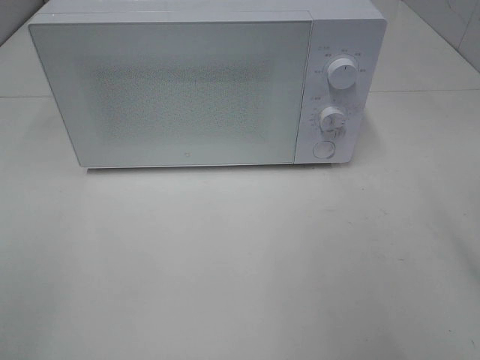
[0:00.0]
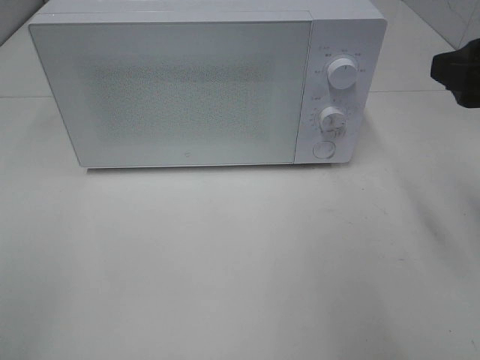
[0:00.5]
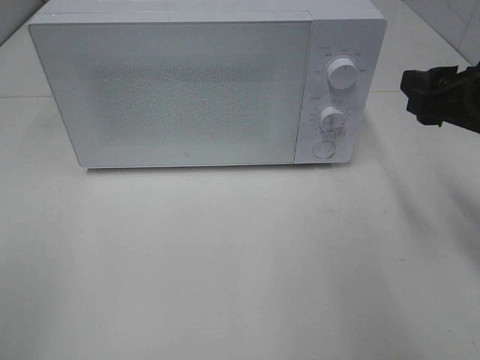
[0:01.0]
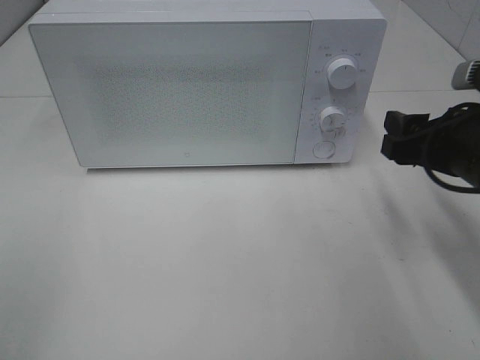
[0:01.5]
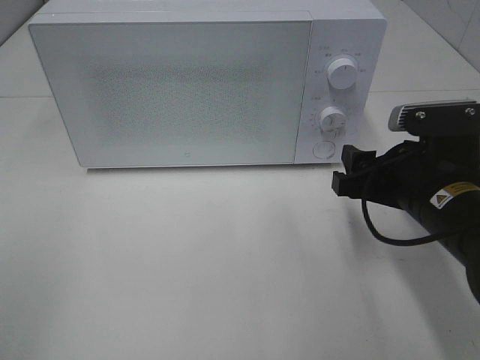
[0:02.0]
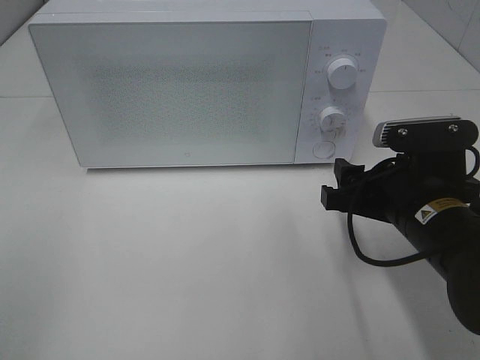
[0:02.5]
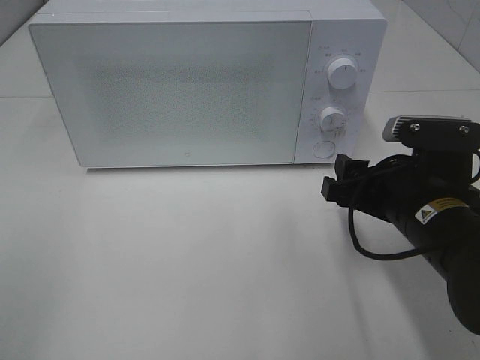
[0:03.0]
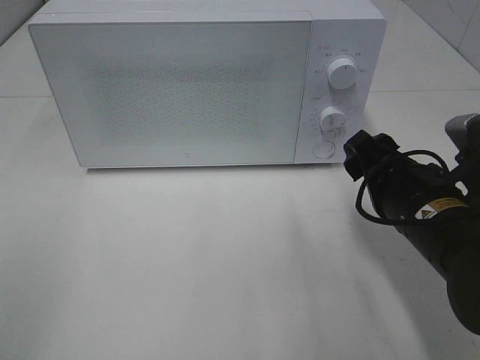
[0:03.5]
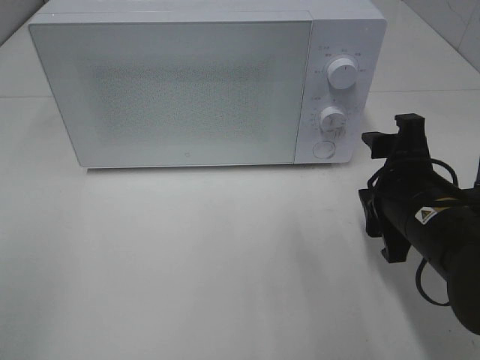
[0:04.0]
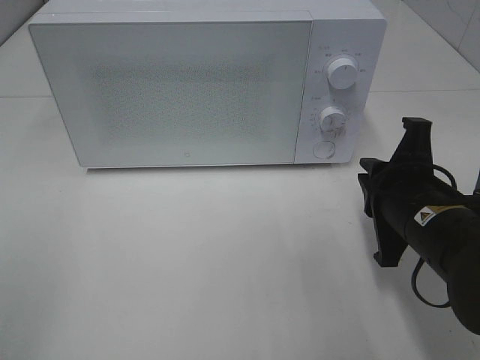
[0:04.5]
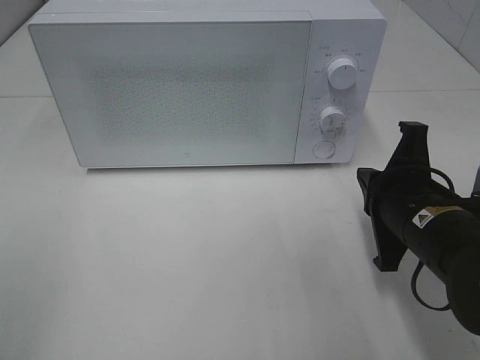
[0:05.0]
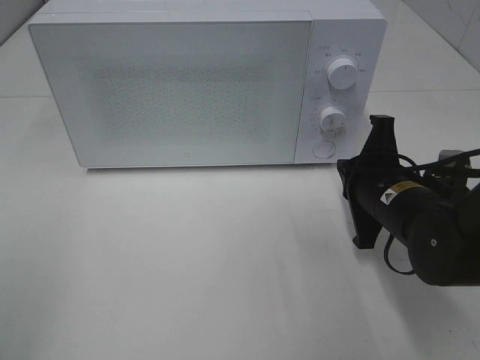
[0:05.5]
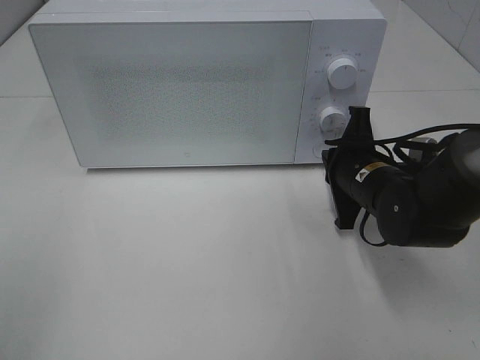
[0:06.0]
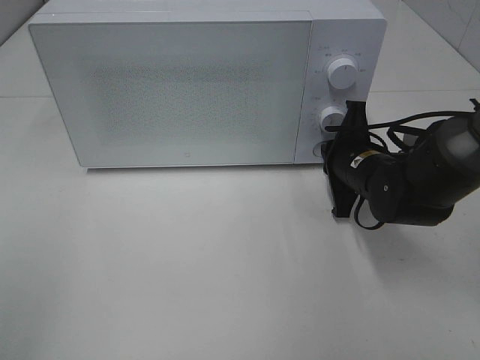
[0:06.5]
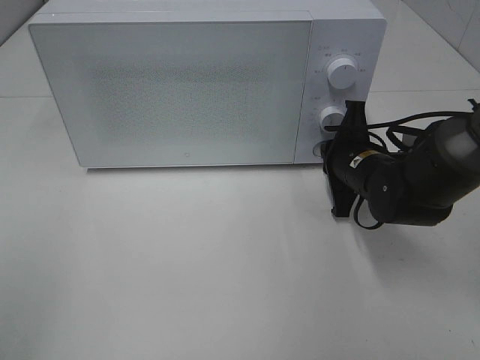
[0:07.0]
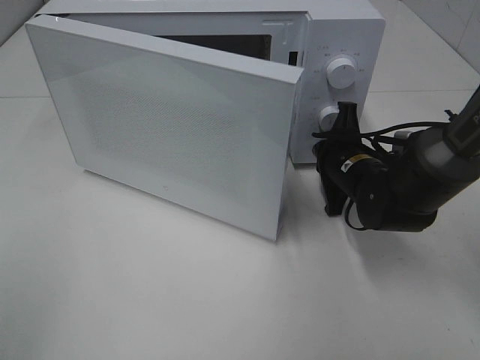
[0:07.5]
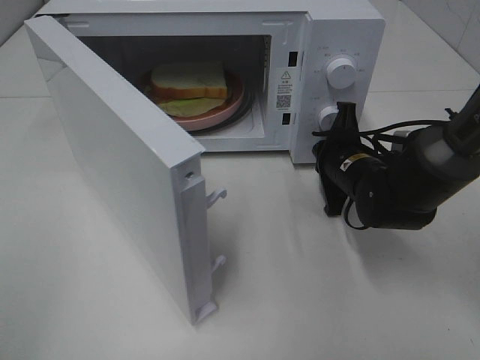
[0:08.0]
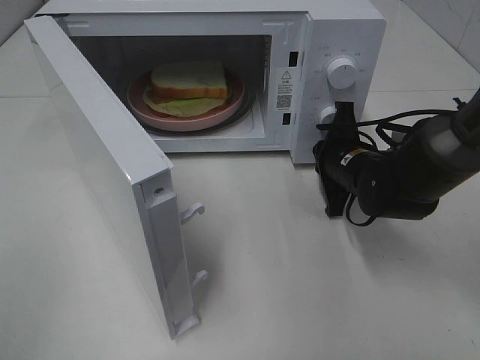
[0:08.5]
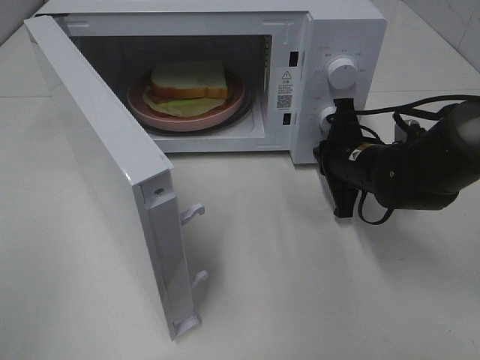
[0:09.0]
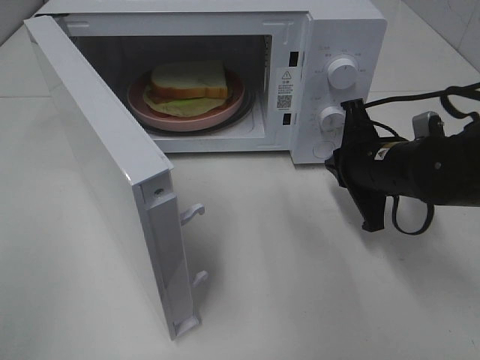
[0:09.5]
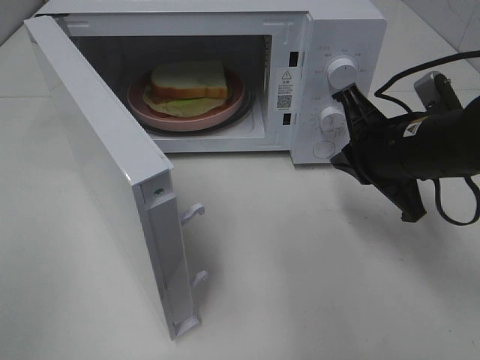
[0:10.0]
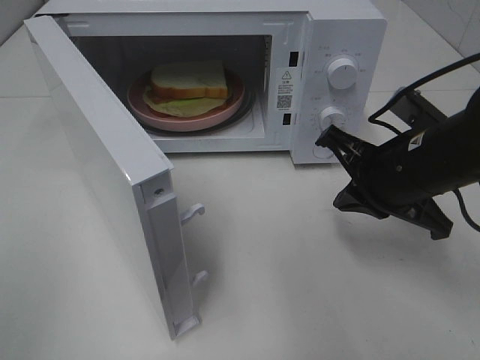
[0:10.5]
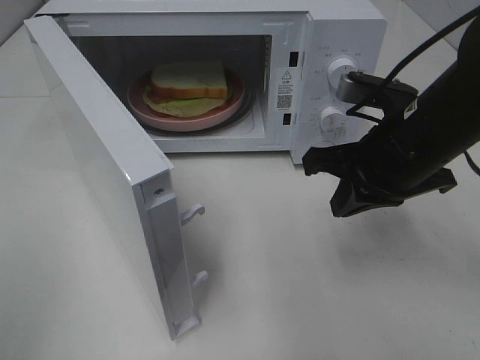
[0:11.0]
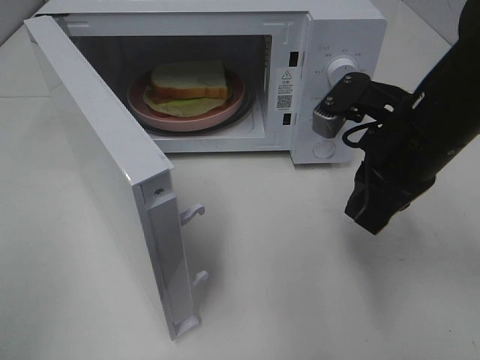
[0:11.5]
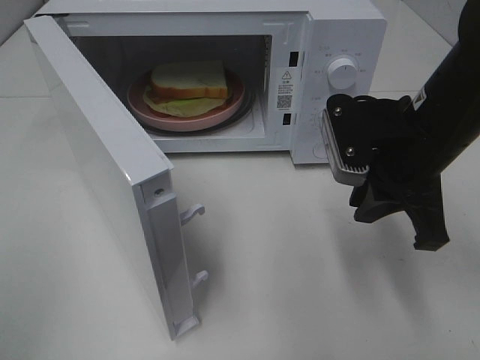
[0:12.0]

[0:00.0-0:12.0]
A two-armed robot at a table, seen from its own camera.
Task of the whole recording: Heat Sandwich.
Step, 0:00.0 to 0:09.0: Right hand: press the switch.
0:00.0 to 0:02.0: The right gripper moves downward, forward and to the left, some 20 cm.
0:04.0 to 0:06.0: The right gripper goes approximately 10 cm forward, and closes.
0:08.0 to 0:10.0: The right gripper is displaced upward and backward by approximately 15 cm.

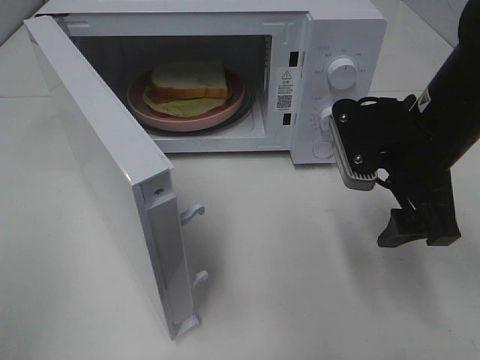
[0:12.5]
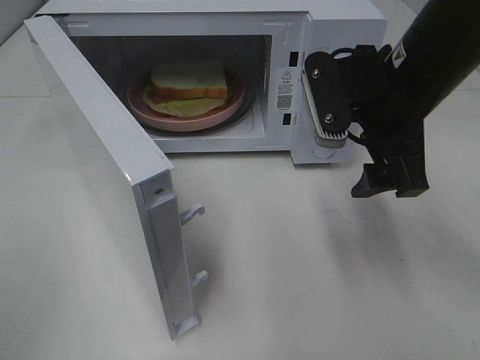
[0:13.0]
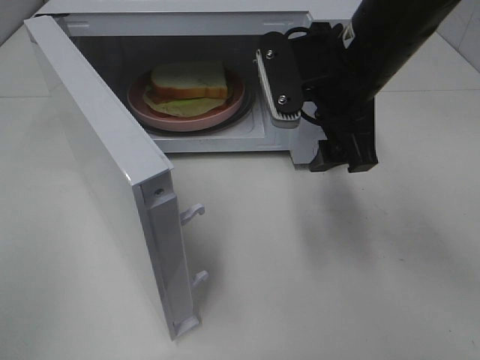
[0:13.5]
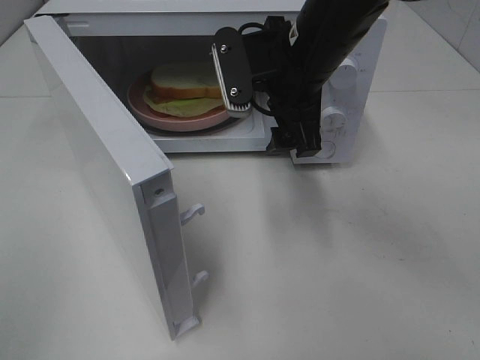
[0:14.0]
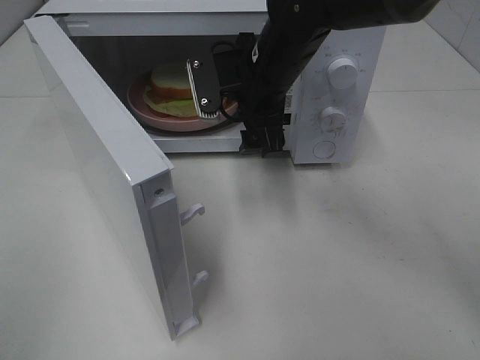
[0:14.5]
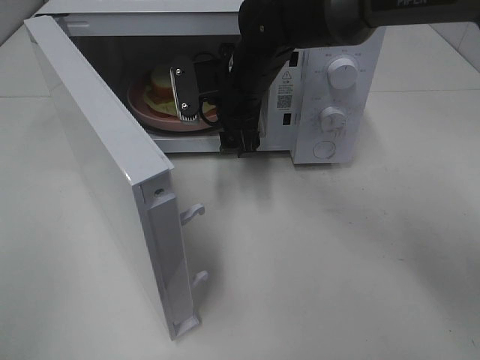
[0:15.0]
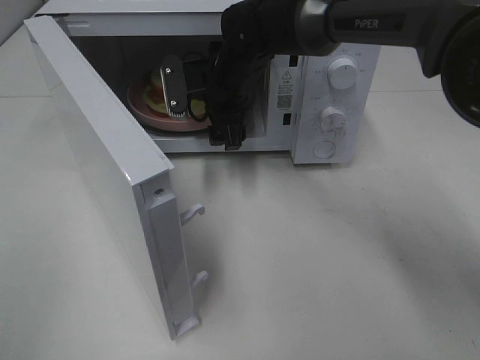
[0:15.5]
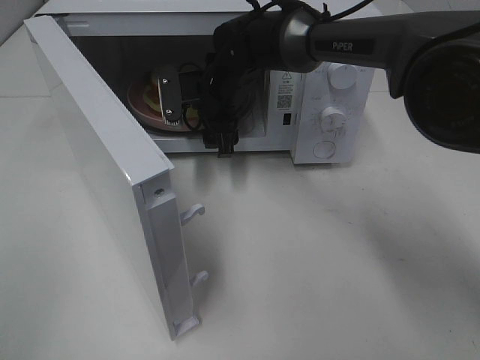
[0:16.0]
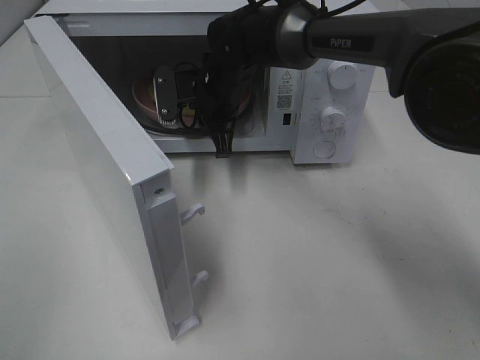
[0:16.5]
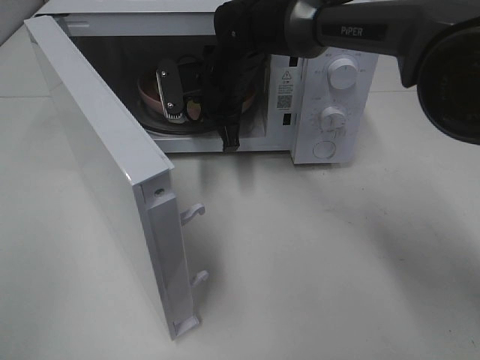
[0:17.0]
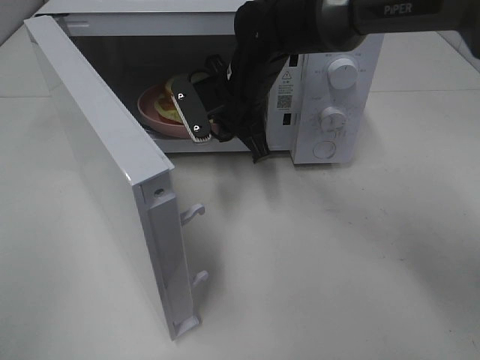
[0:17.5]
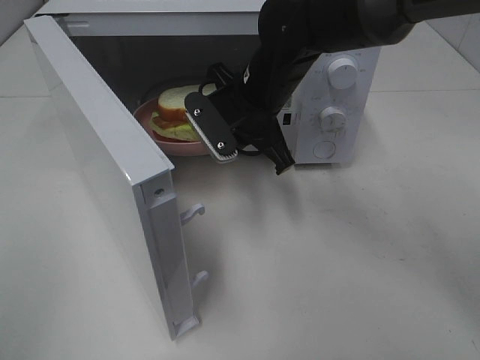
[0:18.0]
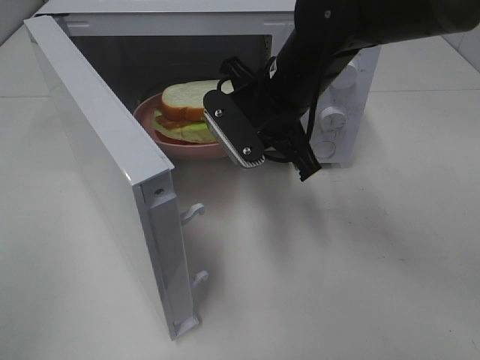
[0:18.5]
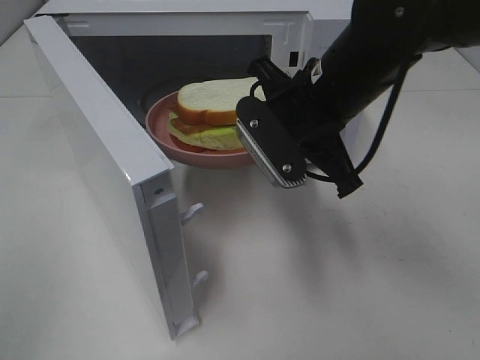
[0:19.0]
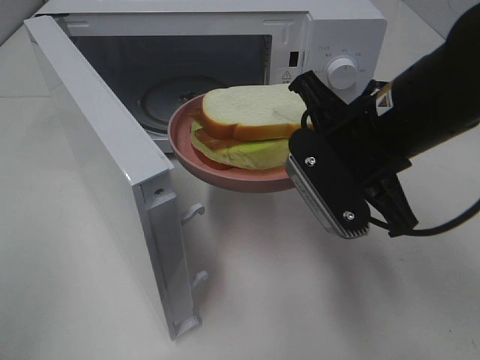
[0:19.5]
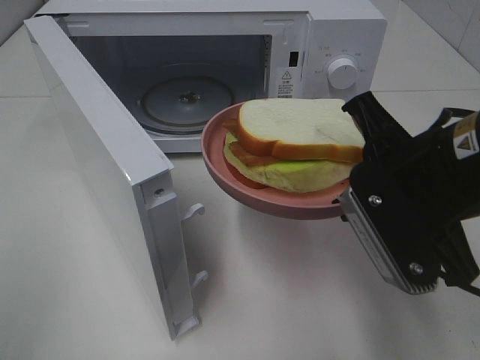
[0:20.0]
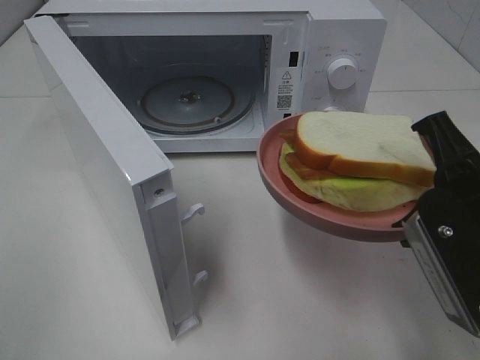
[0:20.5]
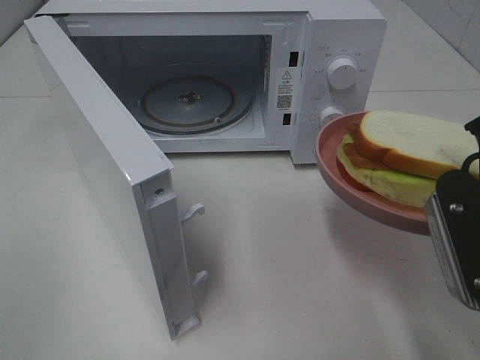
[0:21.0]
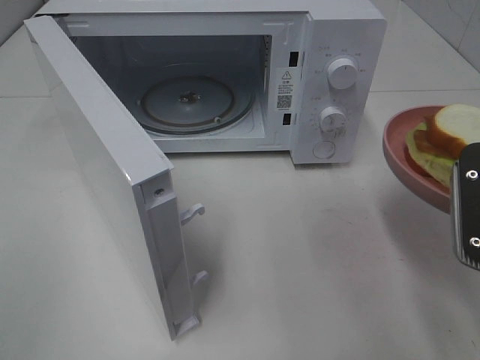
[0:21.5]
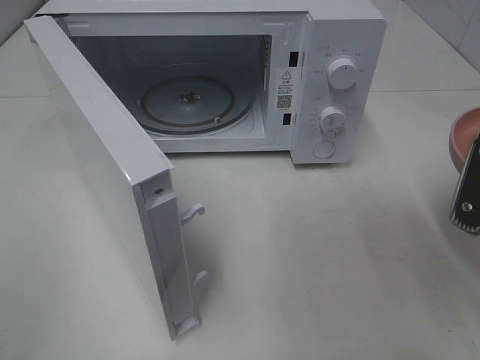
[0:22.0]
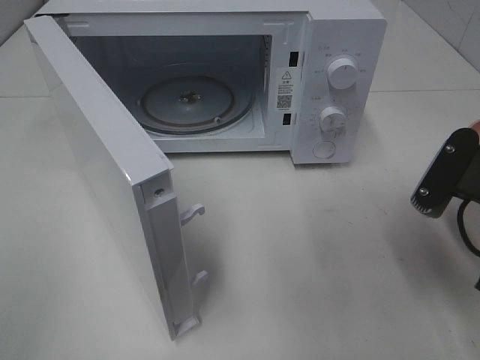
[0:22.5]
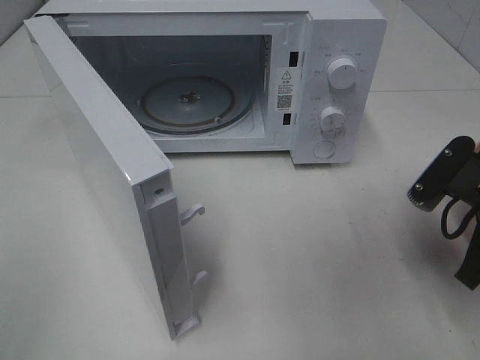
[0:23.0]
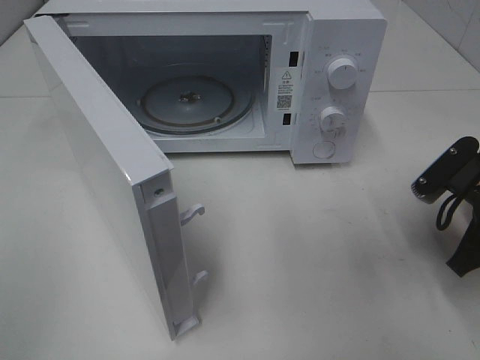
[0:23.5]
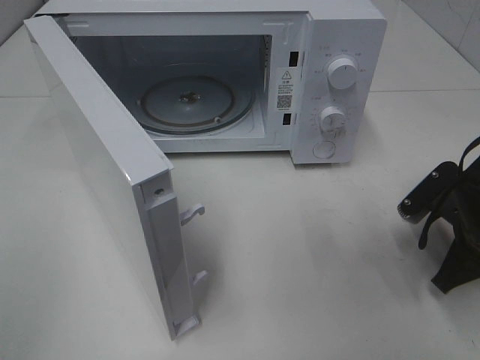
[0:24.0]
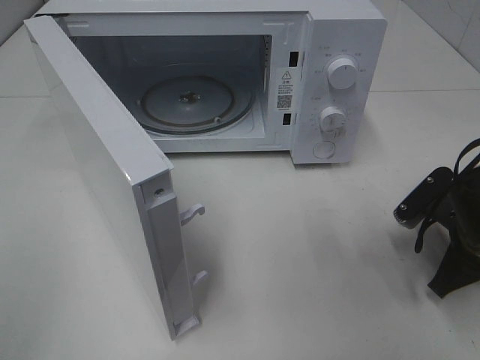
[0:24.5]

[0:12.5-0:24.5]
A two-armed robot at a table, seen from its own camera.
Task of the whole recording: Heat Sandwich.
Step, 0:12.5 to 0:16.5: Right hand: grab the plate with the sandwich.
0:12.5 to 0:14.5: The right gripper goes approximately 20 cm to the left and forward.
0:14.5 to 0:16.5: The right gripper travels forward, downward and to the left by roughly 10 cm, and closes.
0:16.5 to 0:18.5: The right gripper travels backward, to the right and upward by roughly 15 cm.
0:18.5 to 0:20.5: The right gripper moves backward and to the right, approximately 20 cm.
0:20.5 to 0:22.5: The right gripper shifts some 5 cm downward.
0:22.5 to 0:24.5: The right gripper travels downward by approximately 10 cm.

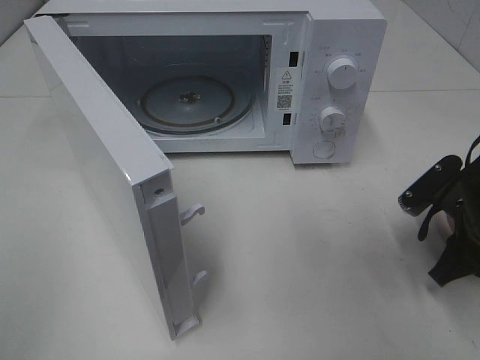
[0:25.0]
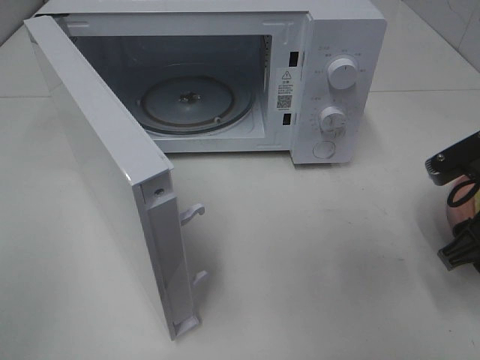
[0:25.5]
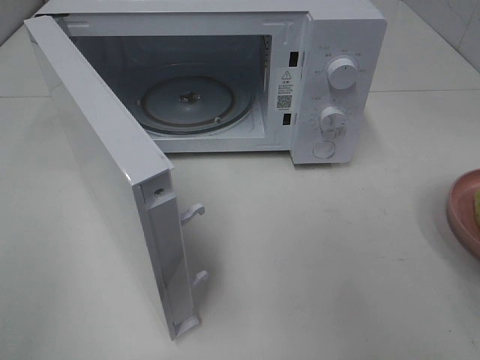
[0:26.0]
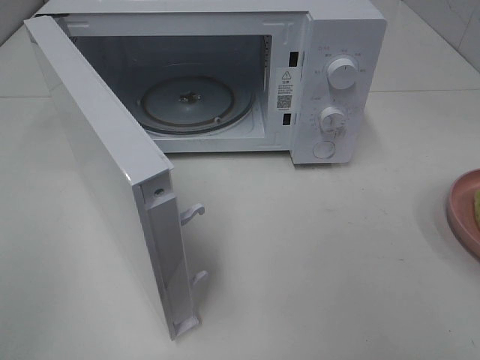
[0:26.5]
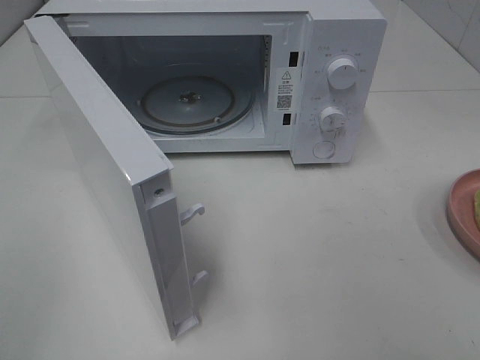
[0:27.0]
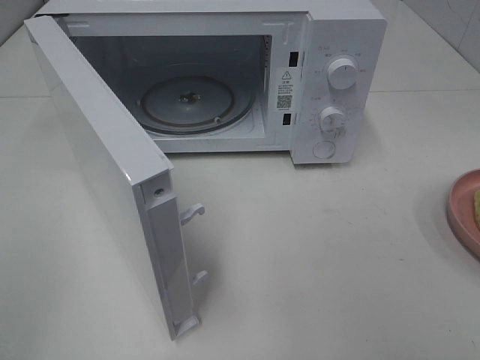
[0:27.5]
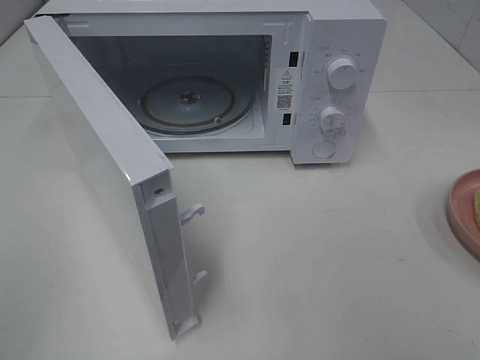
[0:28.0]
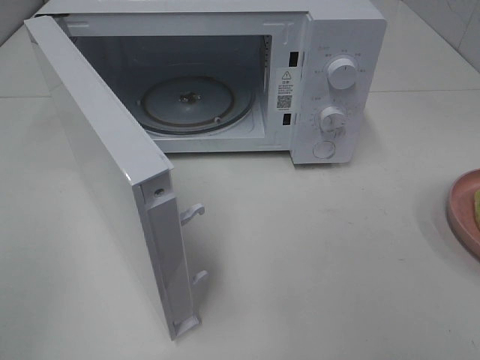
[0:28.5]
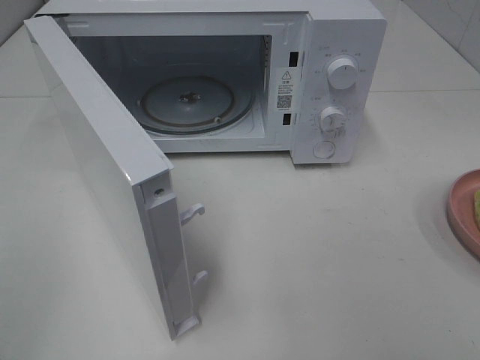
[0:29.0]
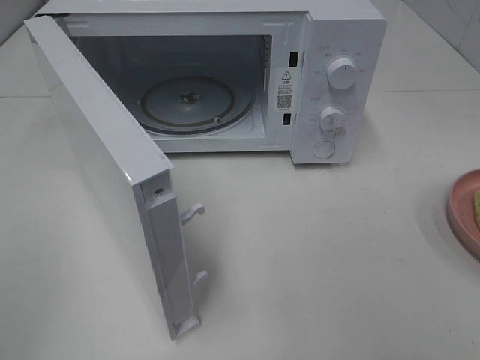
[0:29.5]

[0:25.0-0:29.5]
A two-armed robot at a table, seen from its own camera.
Task of the whole recording: Heat Sandwich.
0:25.0 to 0:27.0: The right gripper travels upward and backward by about 30 cm.
